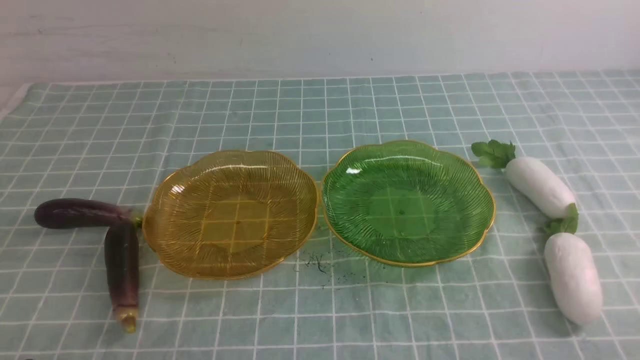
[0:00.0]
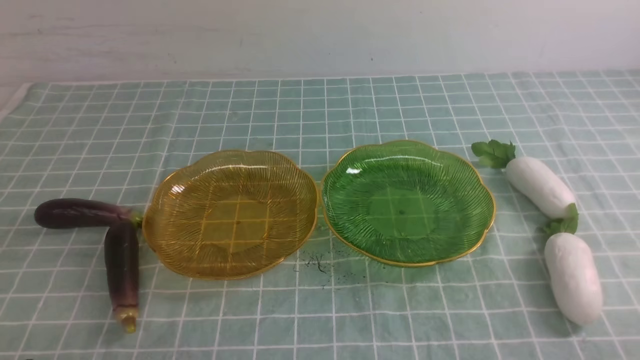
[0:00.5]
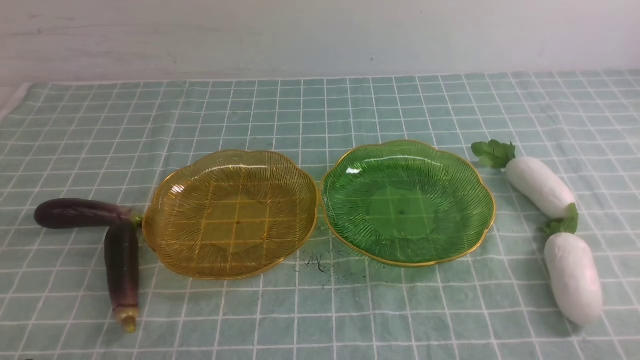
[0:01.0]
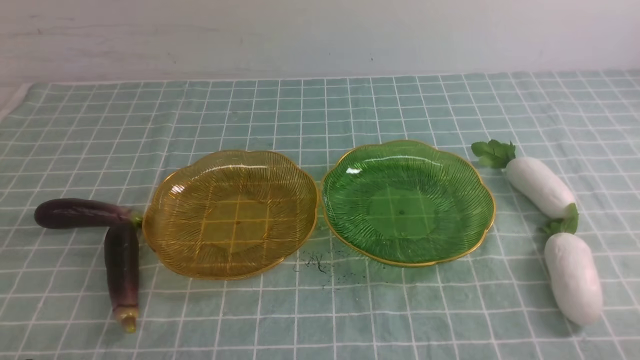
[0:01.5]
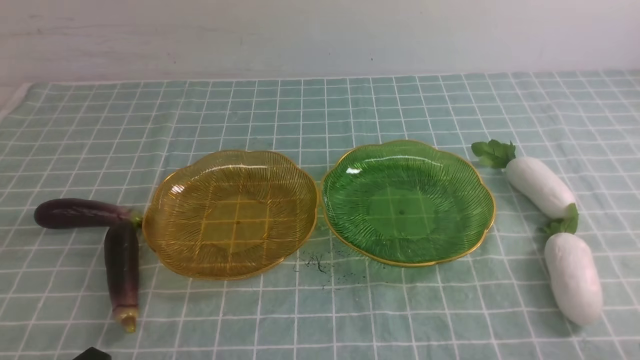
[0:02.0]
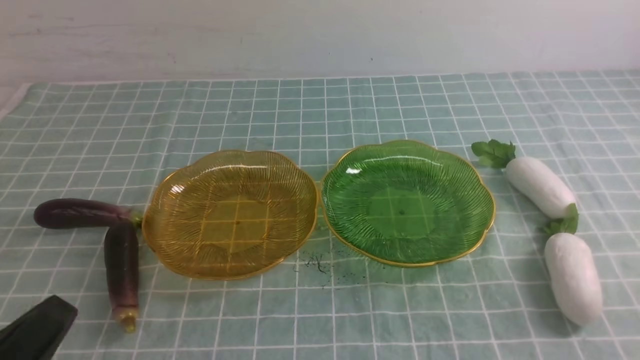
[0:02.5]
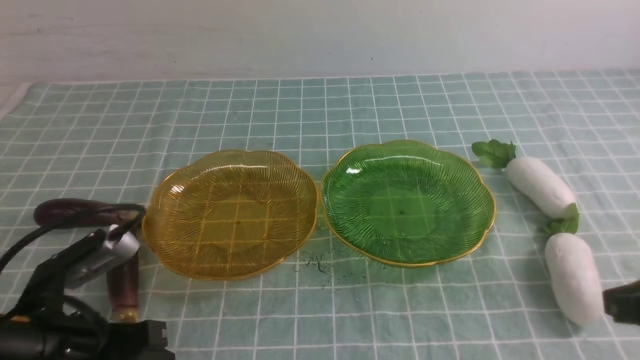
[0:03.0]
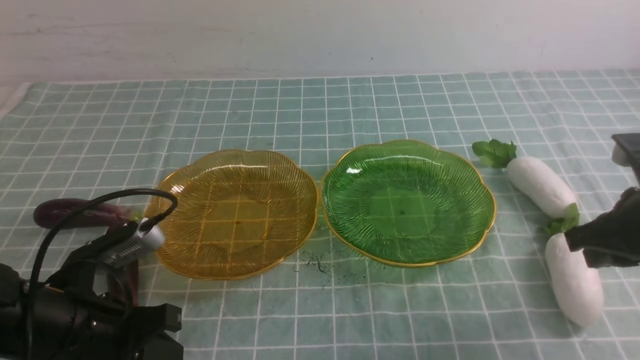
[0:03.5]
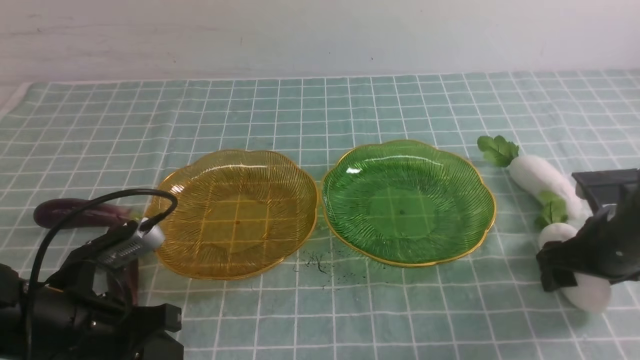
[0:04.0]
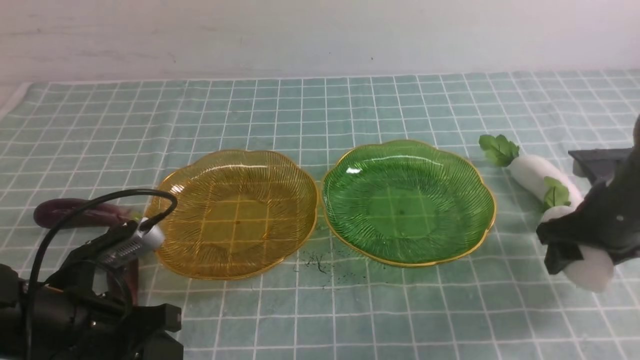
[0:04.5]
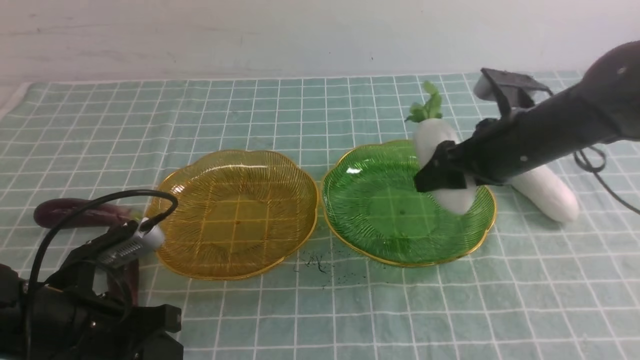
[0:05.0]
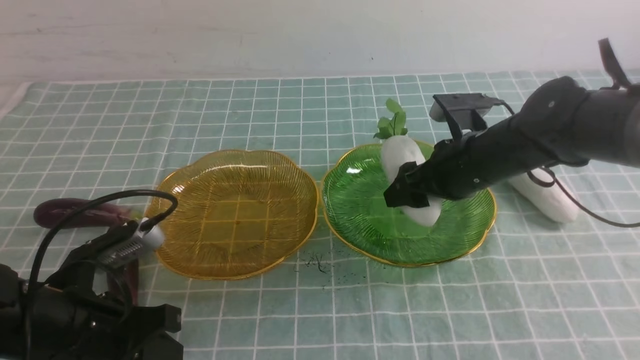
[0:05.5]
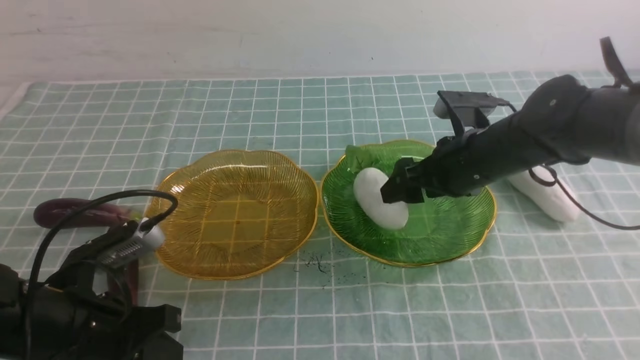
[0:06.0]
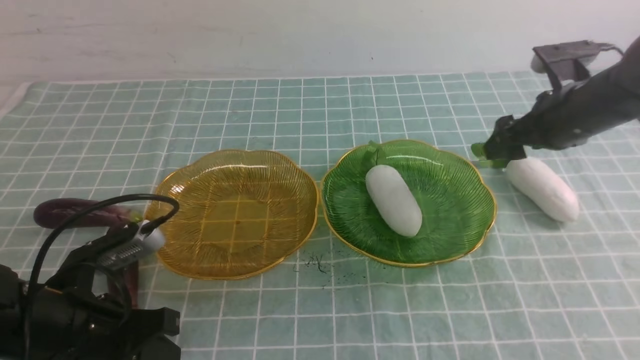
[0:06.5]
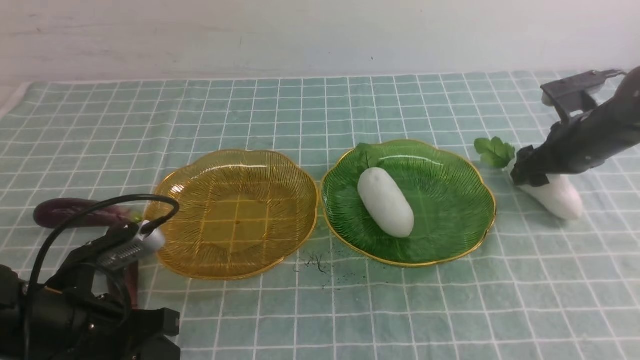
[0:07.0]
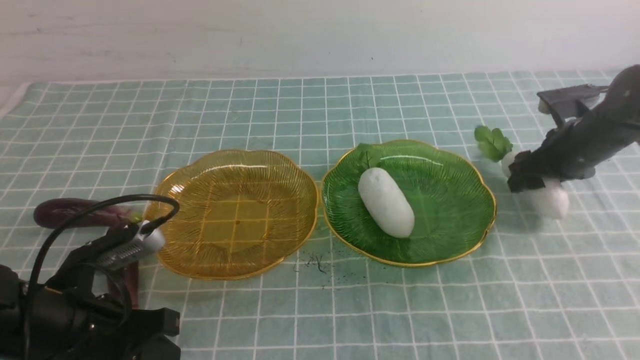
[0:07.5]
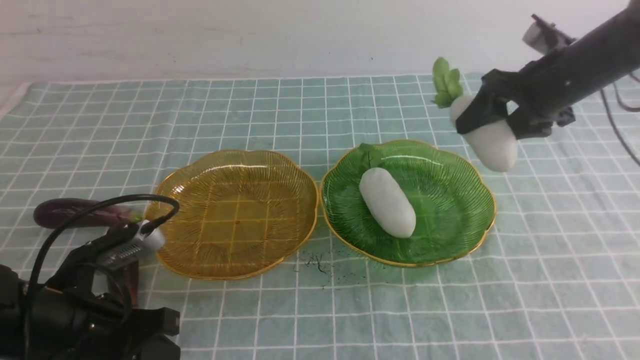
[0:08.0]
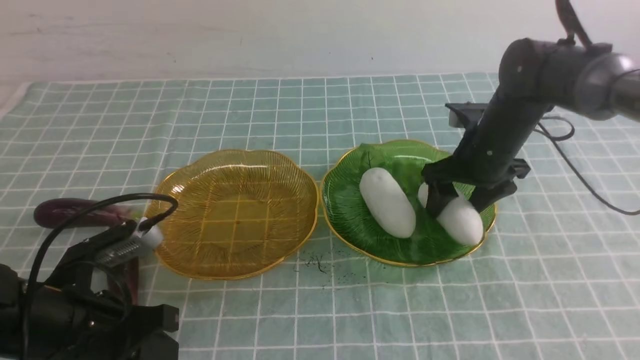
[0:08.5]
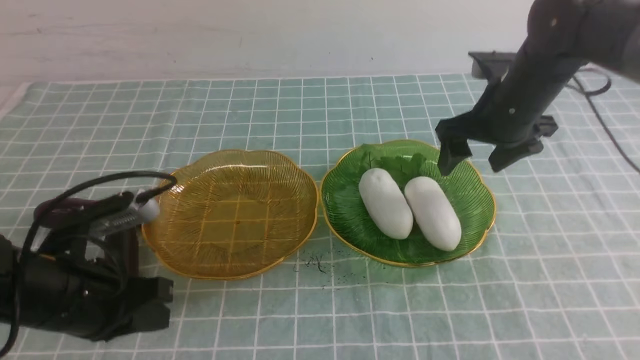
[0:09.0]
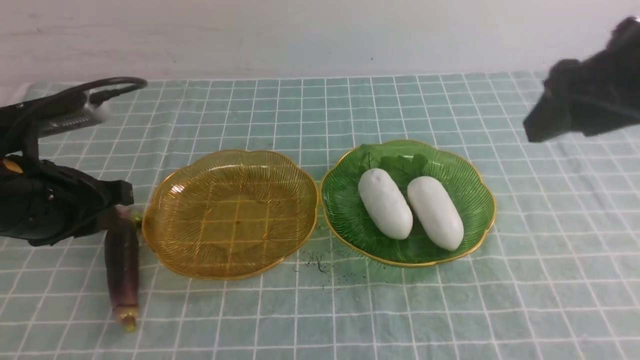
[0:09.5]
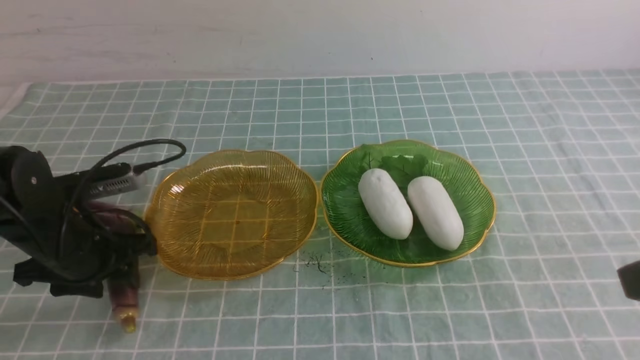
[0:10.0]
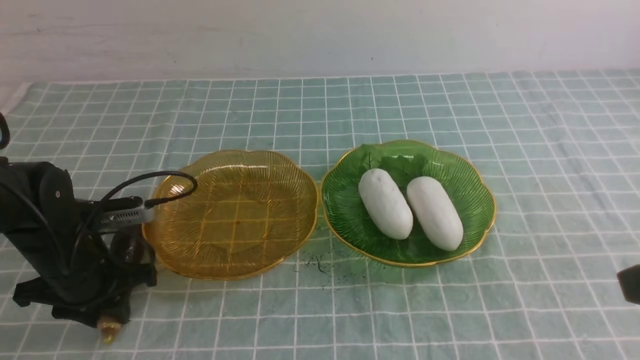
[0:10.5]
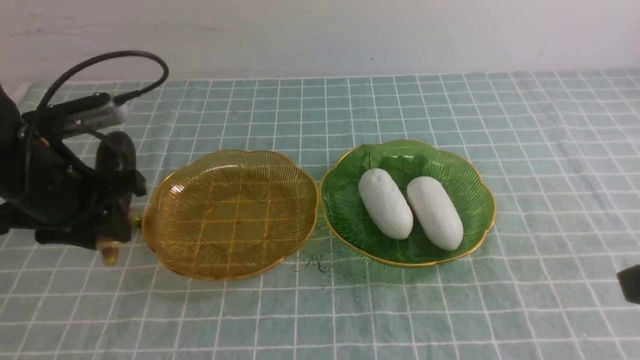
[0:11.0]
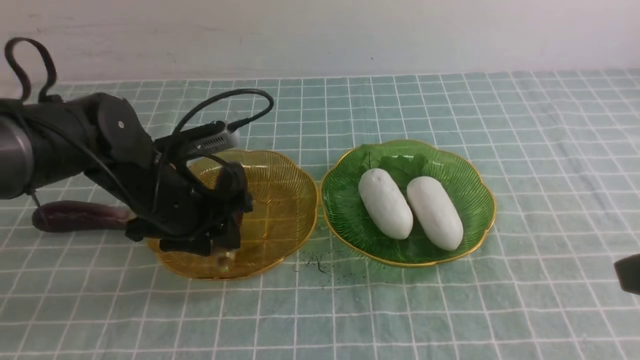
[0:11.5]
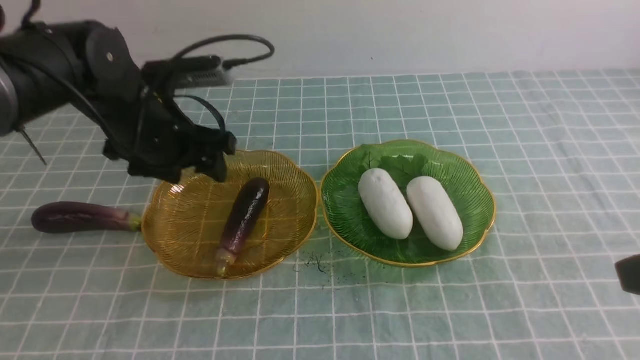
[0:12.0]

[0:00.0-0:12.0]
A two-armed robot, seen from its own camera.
Step, 0:00.0 to 0:08.5: use the right arm to grab a radish and put it into the right plate.
Step, 0:09.0 to 0:11.5: use the left arm to grab an eggplant and put it into the left plate.
0:02.0 to 0:04.0: The left gripper moves forward, some 15 cm. Meanwhile the right gripper heads forward, covering about 25 cm, and opens.
0:04.0 to 0:06.0: The right gripper goes some 15 cm to the left and forward.
0:06.0 to 0:08.0: The right gripper heads to the right and forward, covering approximately 10 cm.
0:08.0 to 0:10.0: The left gripper is displaced forward by some 10 cm, and opens its fingers. Meanwhile the right gripper goes about 30 cm backward.
0:10.0 to 0:12.0: The left gripper moves to the right, upward and forward, roughly 15 cm.

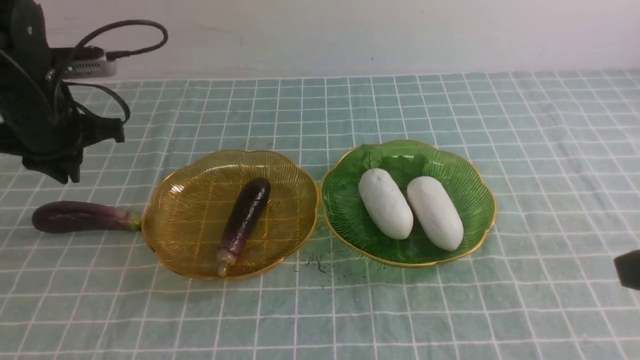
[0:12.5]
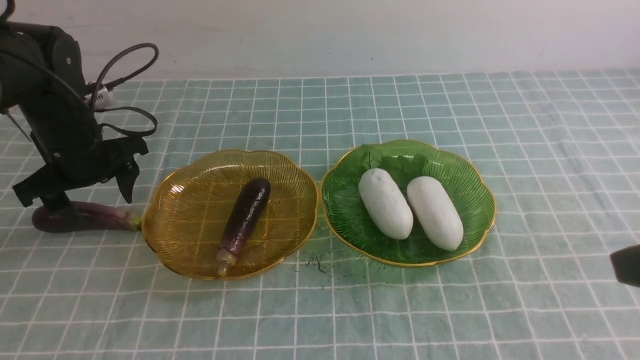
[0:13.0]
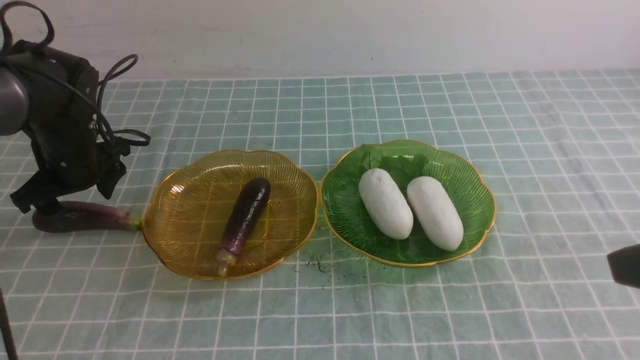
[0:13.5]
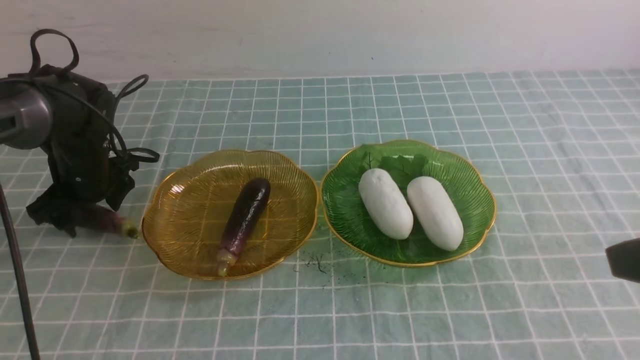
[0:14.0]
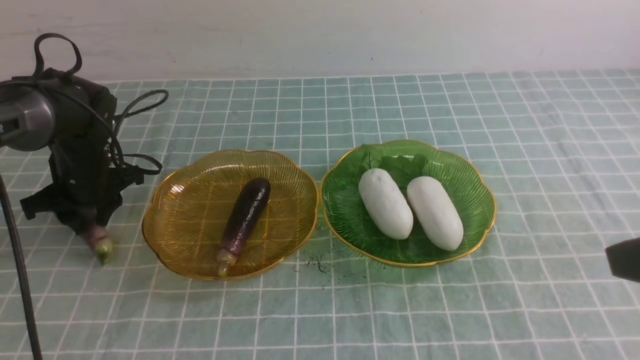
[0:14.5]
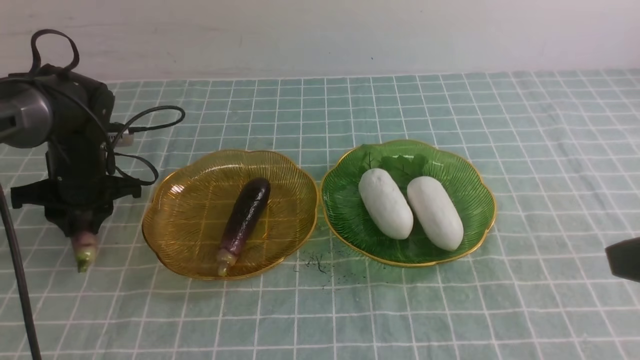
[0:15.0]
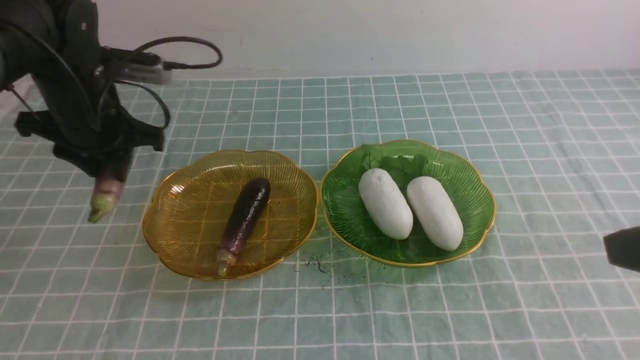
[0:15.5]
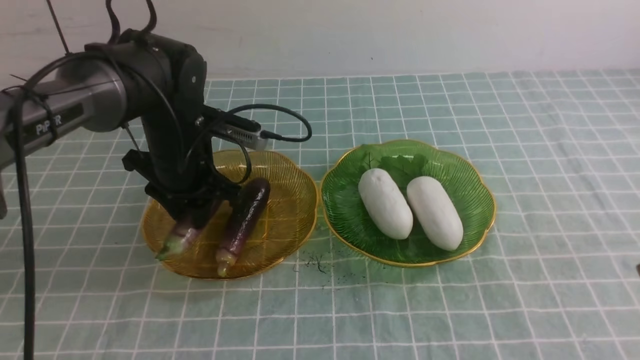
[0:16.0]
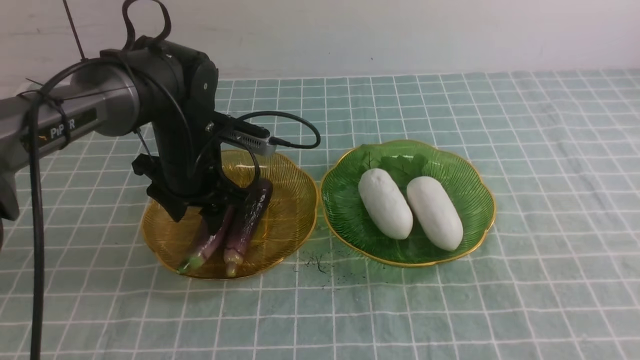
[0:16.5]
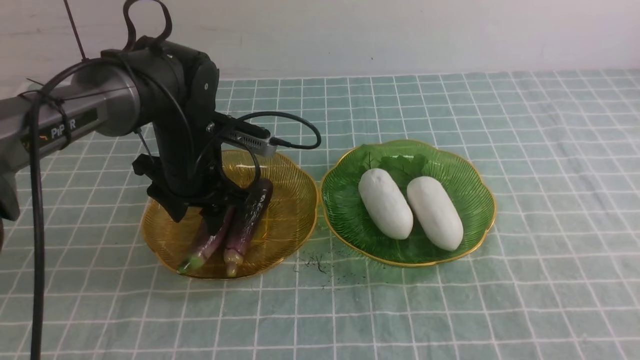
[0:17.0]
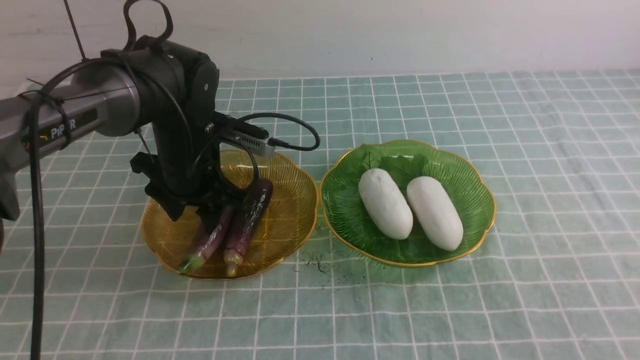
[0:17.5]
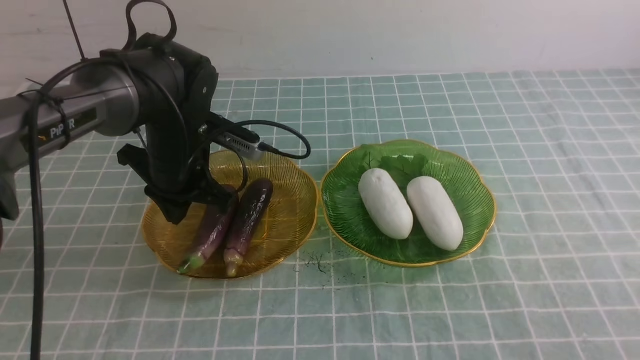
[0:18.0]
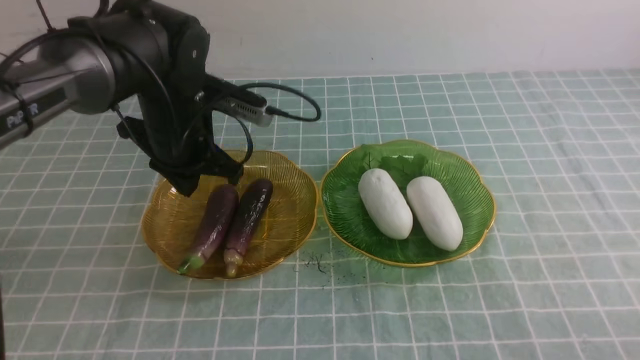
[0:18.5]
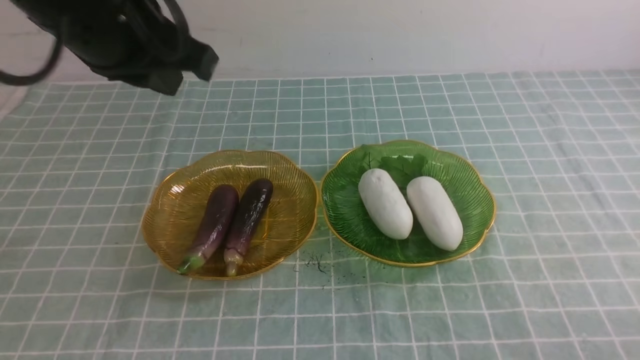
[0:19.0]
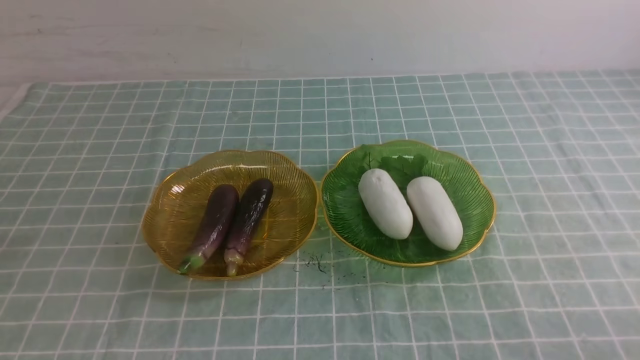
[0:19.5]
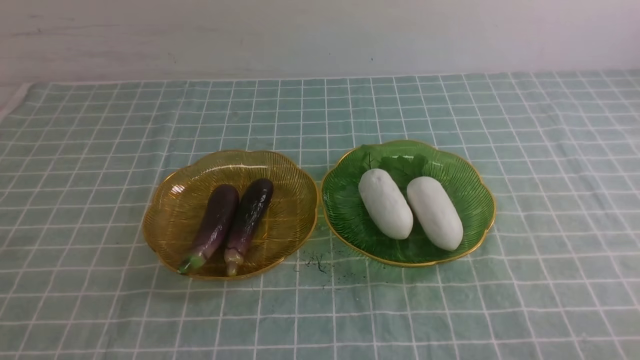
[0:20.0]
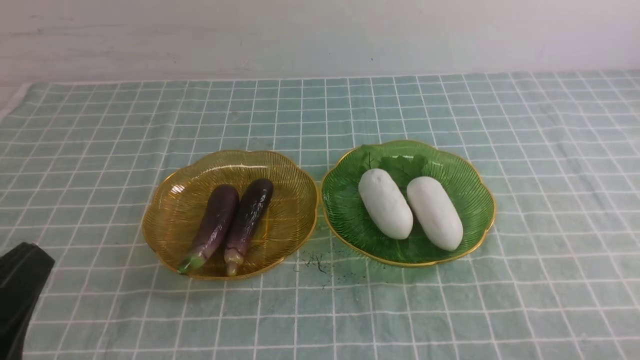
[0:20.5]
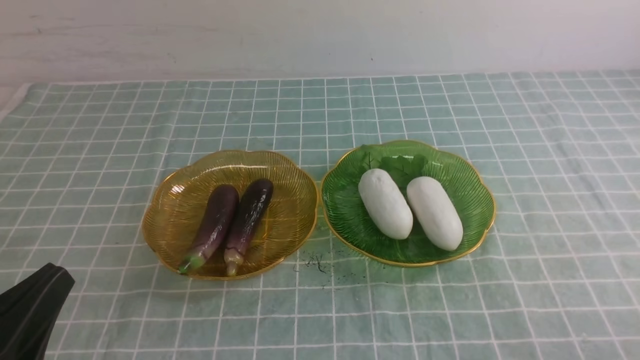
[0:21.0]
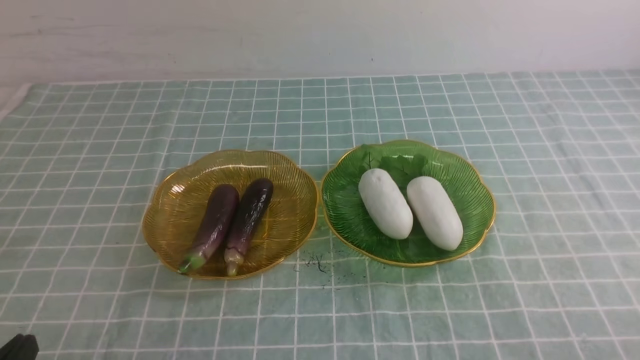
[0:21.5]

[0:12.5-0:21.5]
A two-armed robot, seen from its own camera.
Step, 0:12.5 to 0:16.5: use the left arm to grab an eggplant and put it into the left plate.
0:12.5 to 0:14.5: The left gripper moves downward, approximately 10 cm, and opens its fingers.
0:14.5 to 0:17.0: The left gripper travels to the right by some 15 cm, while the right gripper travels backward by approximately 10 cm, and closes up.
0:17.0 to 0:19.5: The right gripper goes approximately 15 cm downward, while the left gripper travels backward and upward by approximately 40 cm, and closes.
